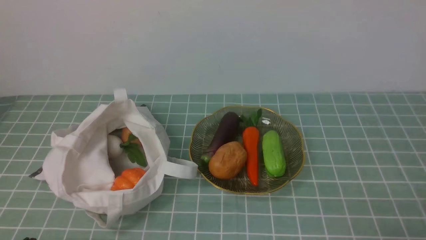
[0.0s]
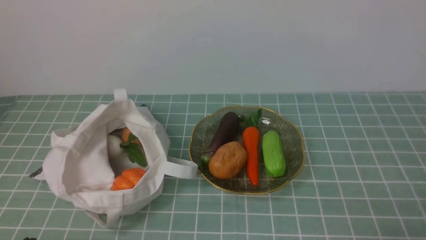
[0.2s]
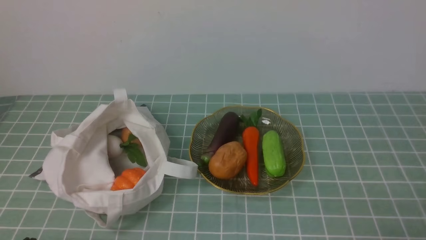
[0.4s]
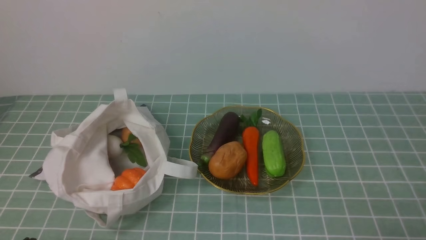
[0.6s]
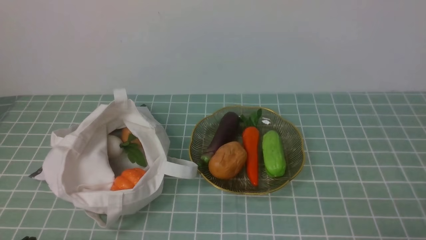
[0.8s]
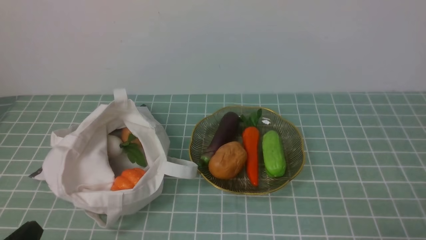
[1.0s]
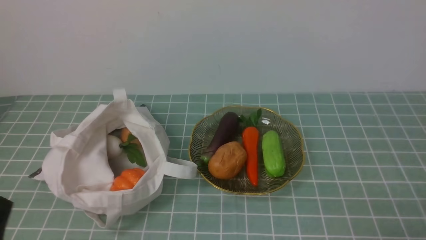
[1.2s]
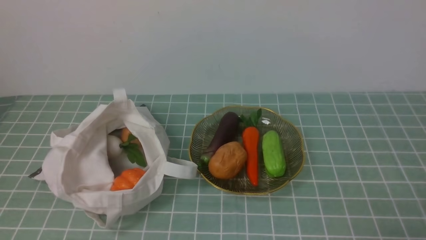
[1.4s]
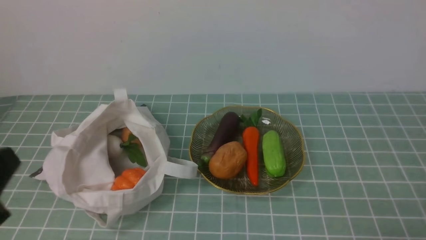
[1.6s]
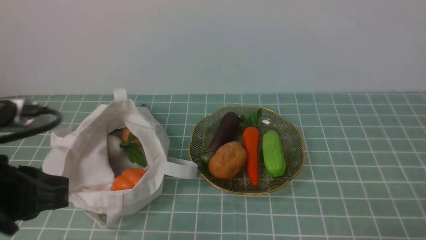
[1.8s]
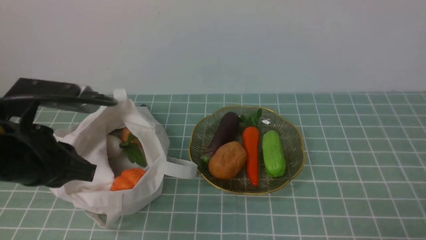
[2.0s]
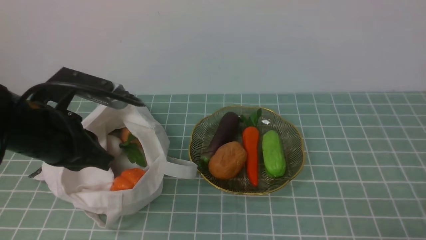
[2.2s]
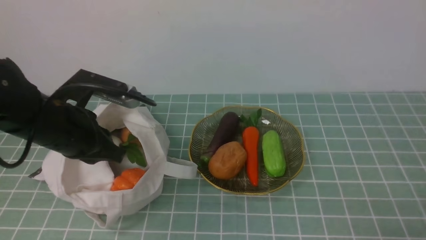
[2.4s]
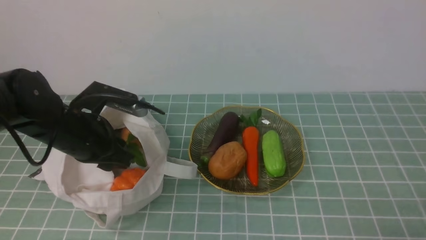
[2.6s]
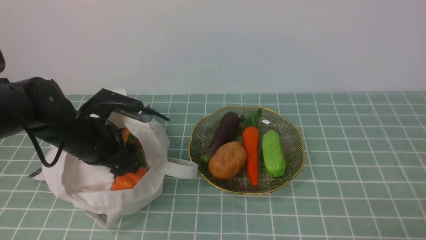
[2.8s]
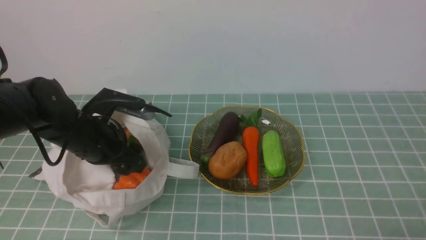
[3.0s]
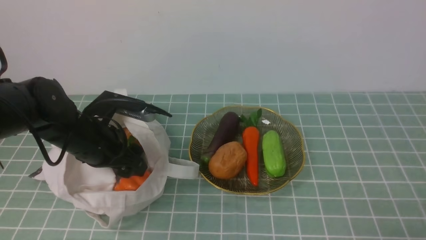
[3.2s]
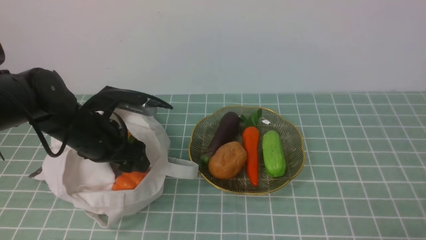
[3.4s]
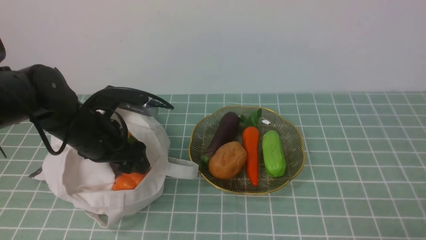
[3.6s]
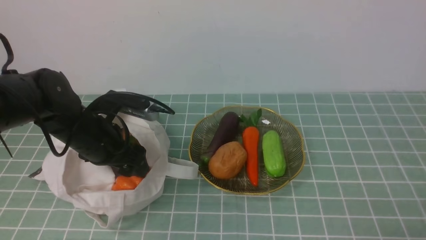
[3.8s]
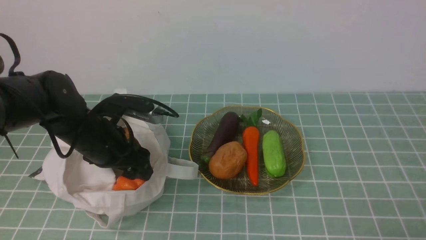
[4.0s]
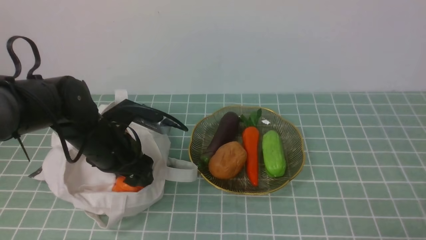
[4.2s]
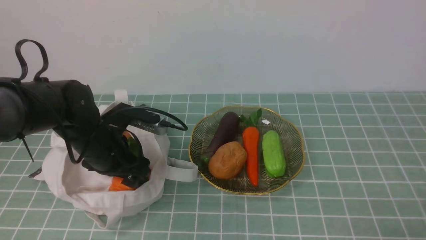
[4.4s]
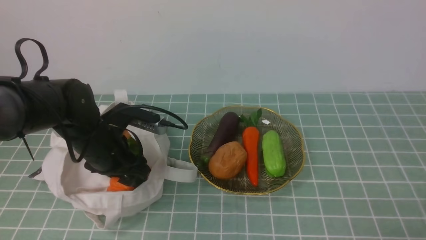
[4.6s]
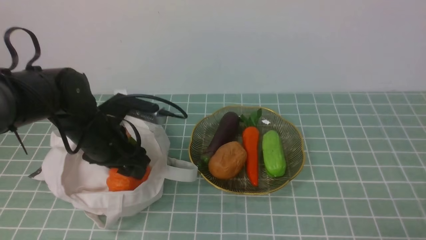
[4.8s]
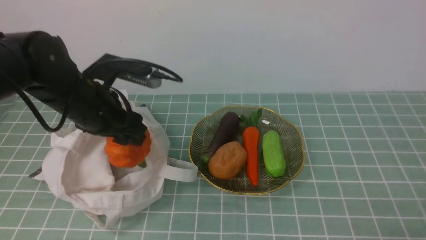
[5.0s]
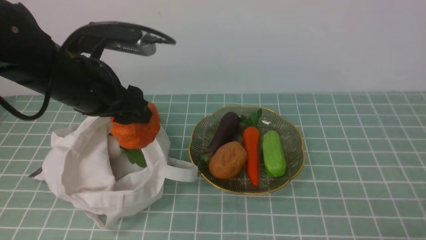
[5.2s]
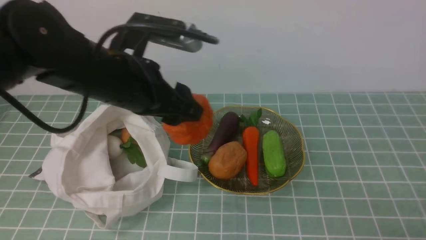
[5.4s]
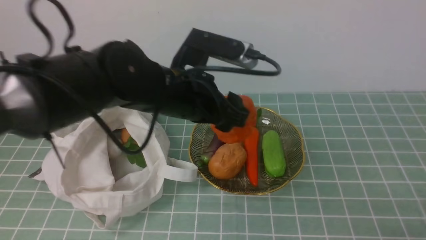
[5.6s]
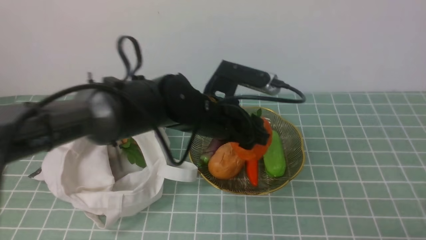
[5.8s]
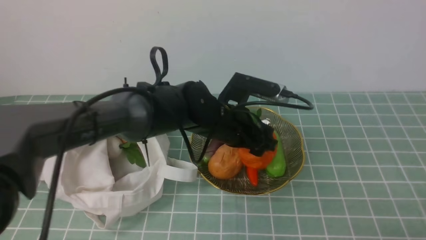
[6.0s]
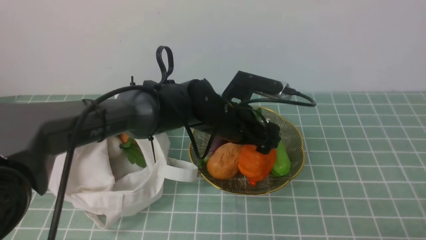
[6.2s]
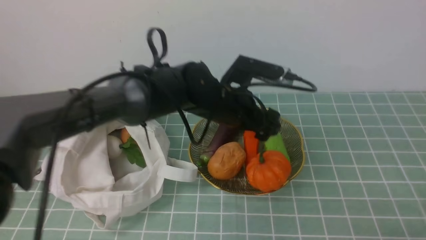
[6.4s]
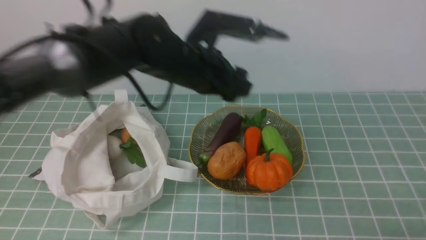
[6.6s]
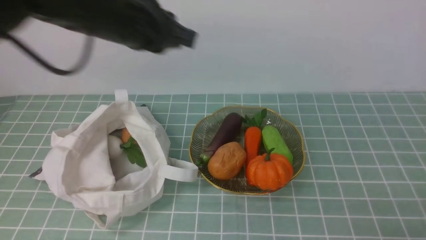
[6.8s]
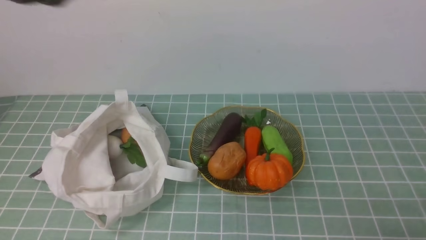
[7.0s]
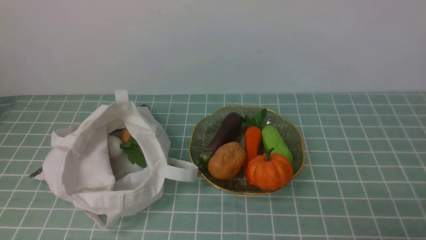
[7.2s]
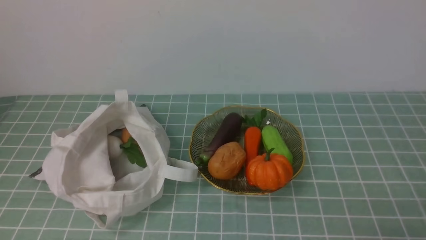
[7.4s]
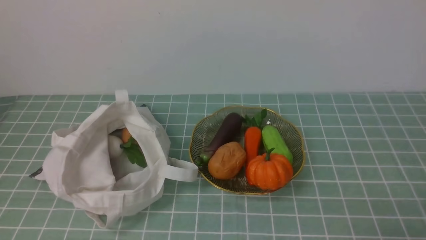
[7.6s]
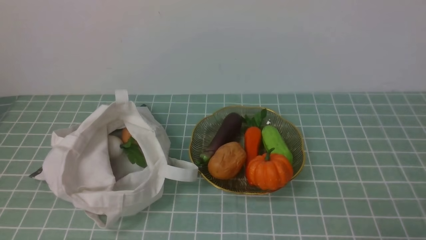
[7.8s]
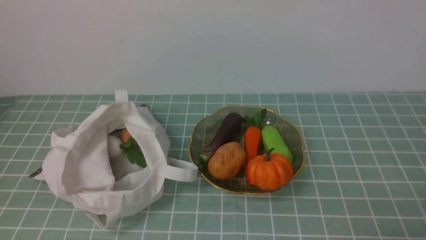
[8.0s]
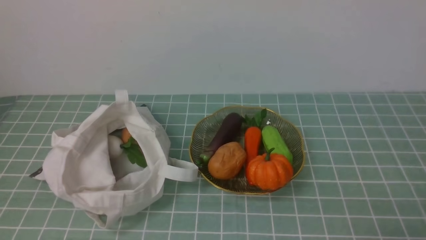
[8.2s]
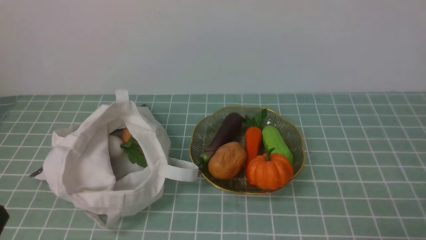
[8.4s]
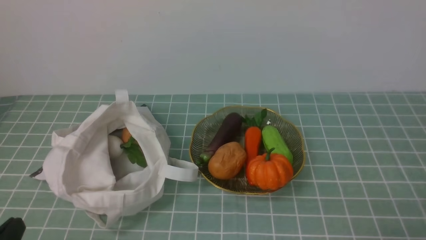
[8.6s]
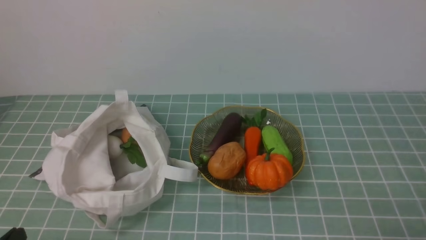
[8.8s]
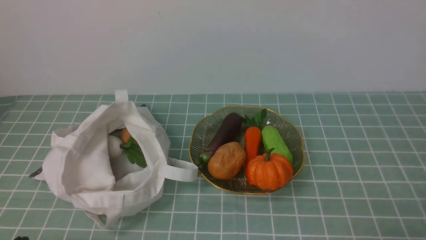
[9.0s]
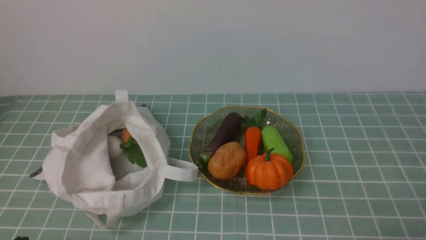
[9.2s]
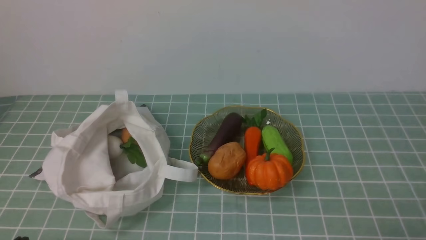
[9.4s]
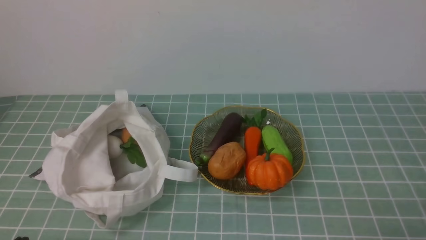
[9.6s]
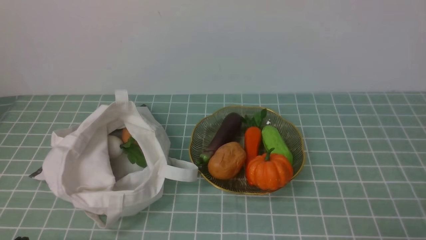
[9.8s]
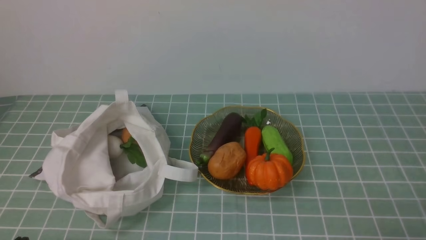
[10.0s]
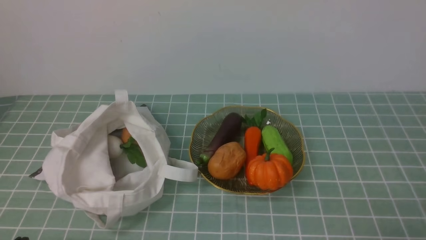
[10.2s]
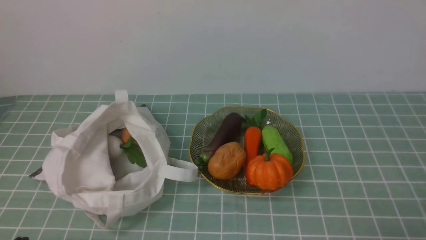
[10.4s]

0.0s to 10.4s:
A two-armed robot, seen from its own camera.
Task of the whole recording: take vegetables from cloth bag on blue coffee tablecloth place on plate.
Step, 0.0s to 4.6s: Grasp the pumpkin with left gripper.
Step, 4.8s to 6.2s: Place the pumpkin on the plate with left gripper.
1.4s to 3.0s: The left gripper shifts about 25 cm forward, and opens its fingers.
3.0s to 4.4s: The grippers make only small movements.
4.4s to 6.0s: The left gripper travels to the right by some 20 cm.
6.0s to 7.4s: The left gripper is displaced backward, to the left and upward by about 40 cm, and closes up.
9.0s to 10.4s: Both grippers stay about where they are.
